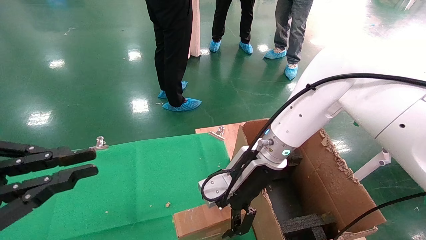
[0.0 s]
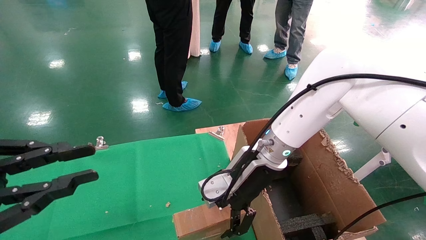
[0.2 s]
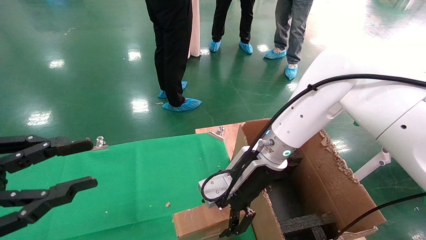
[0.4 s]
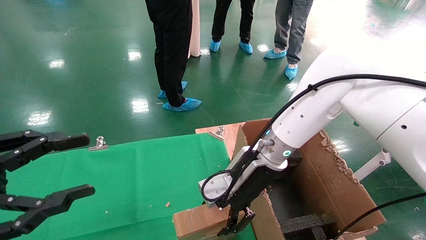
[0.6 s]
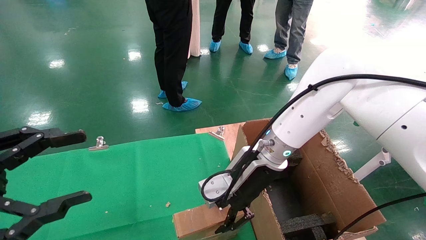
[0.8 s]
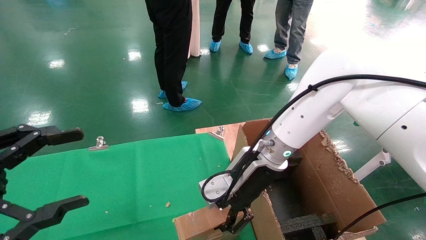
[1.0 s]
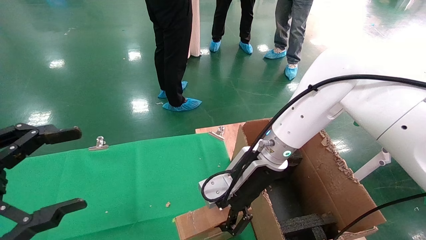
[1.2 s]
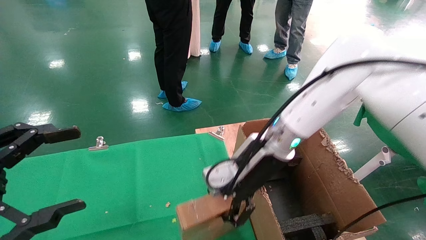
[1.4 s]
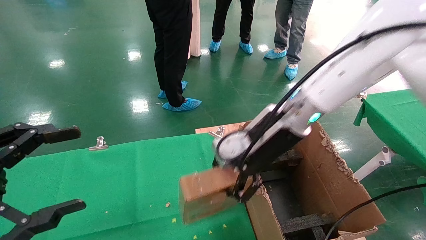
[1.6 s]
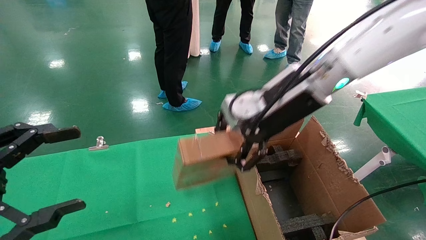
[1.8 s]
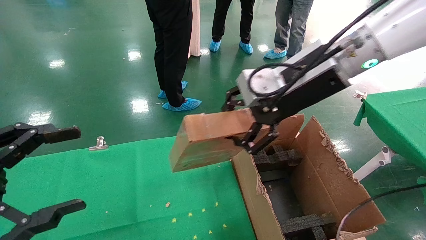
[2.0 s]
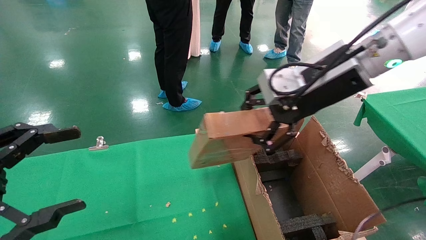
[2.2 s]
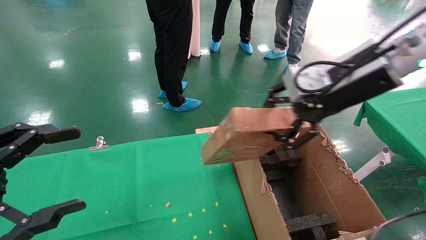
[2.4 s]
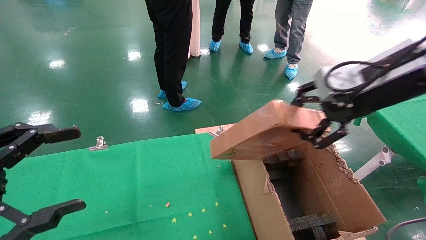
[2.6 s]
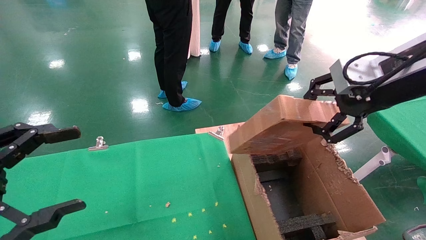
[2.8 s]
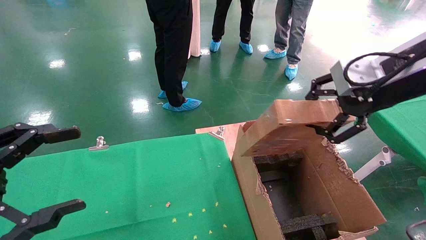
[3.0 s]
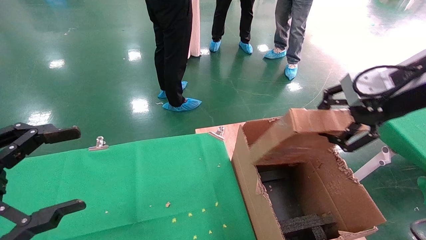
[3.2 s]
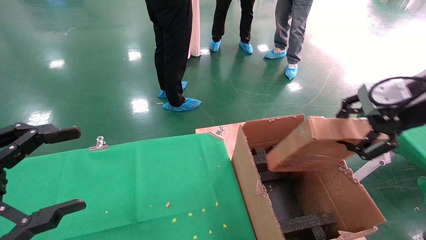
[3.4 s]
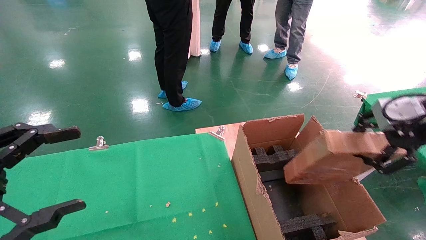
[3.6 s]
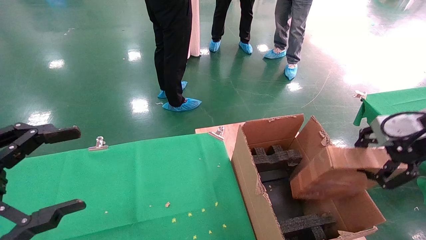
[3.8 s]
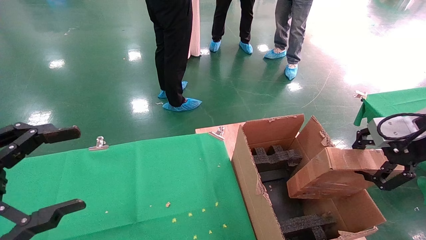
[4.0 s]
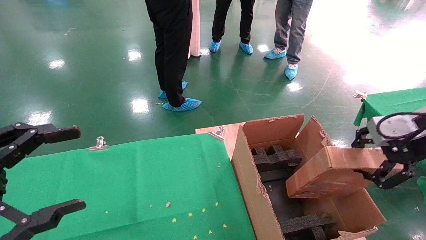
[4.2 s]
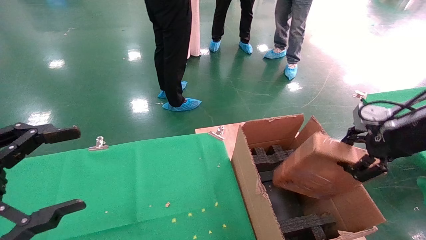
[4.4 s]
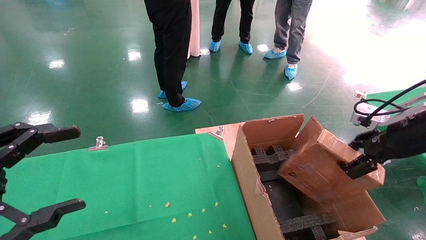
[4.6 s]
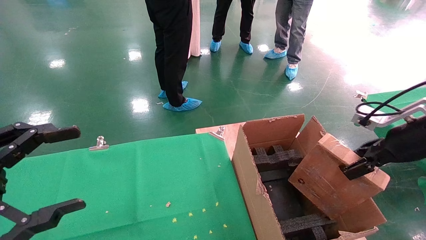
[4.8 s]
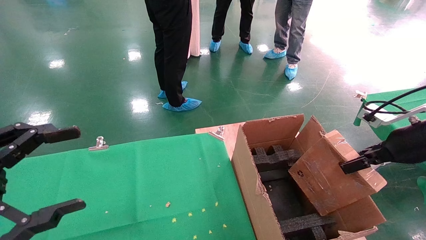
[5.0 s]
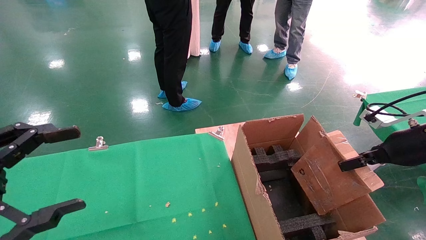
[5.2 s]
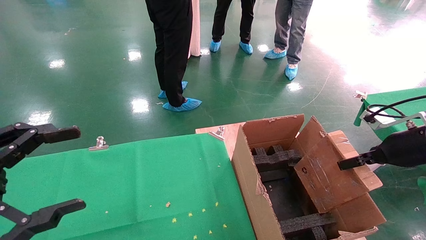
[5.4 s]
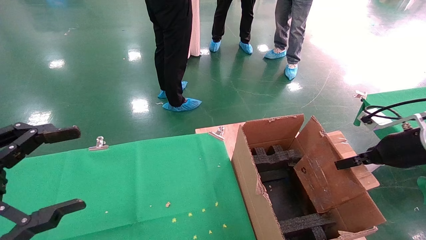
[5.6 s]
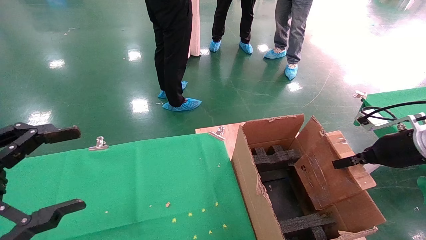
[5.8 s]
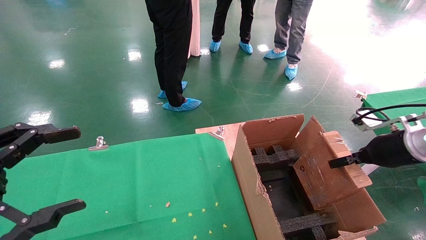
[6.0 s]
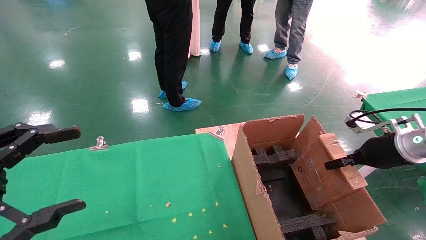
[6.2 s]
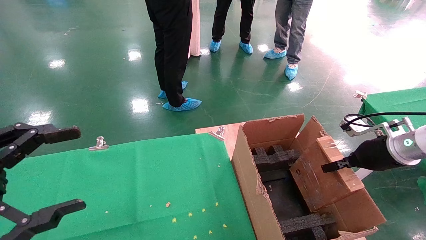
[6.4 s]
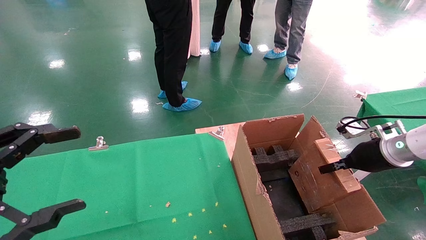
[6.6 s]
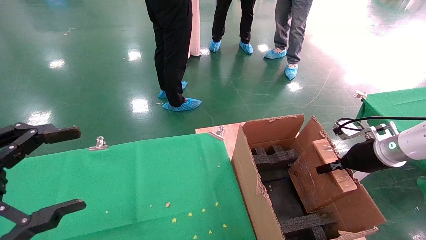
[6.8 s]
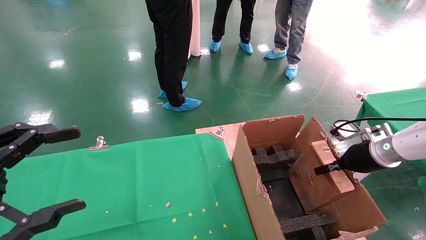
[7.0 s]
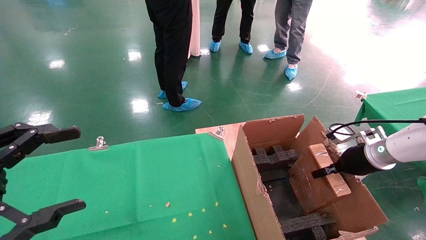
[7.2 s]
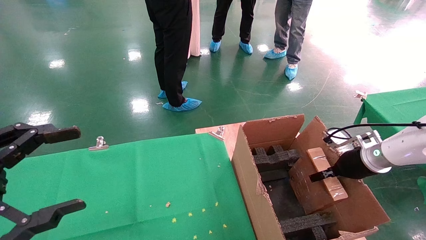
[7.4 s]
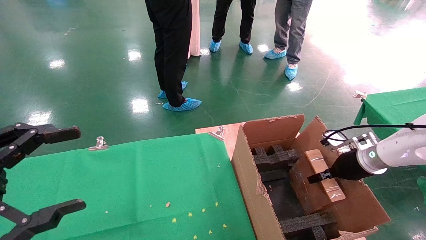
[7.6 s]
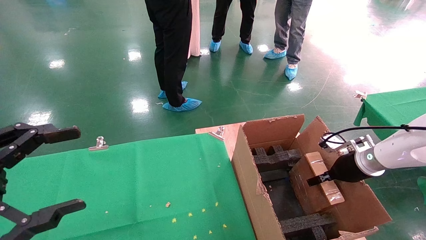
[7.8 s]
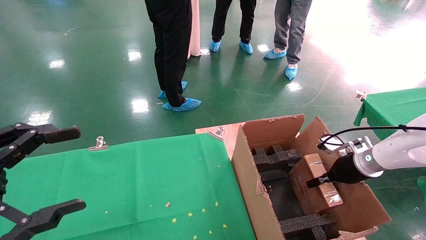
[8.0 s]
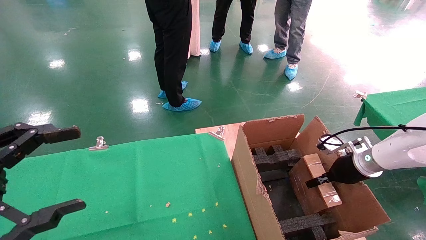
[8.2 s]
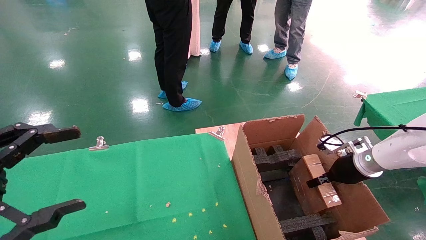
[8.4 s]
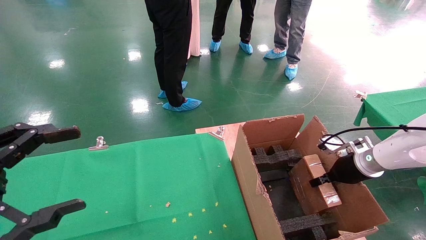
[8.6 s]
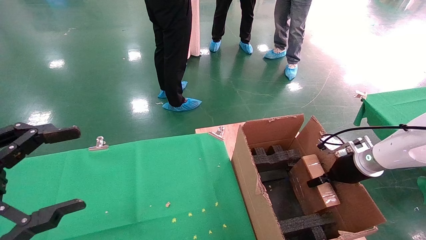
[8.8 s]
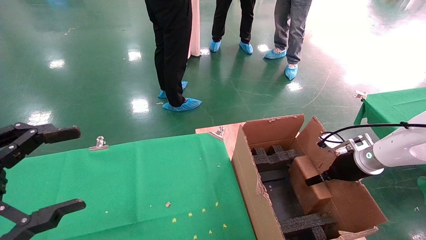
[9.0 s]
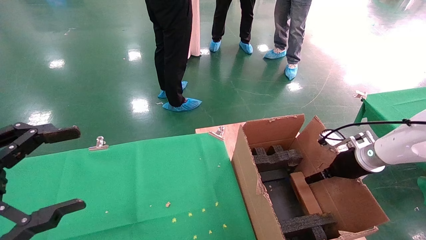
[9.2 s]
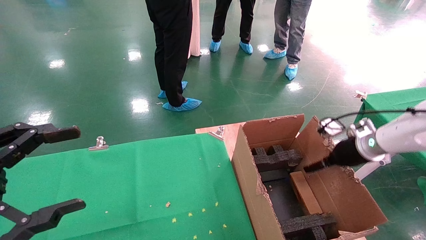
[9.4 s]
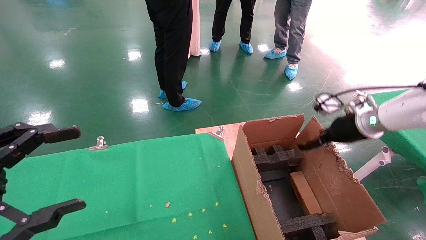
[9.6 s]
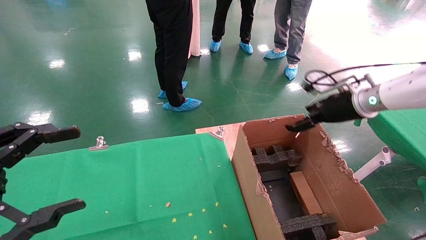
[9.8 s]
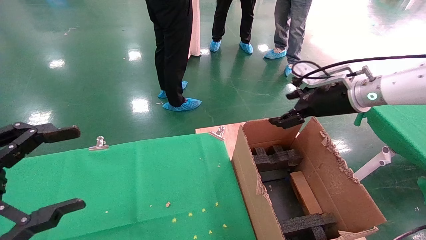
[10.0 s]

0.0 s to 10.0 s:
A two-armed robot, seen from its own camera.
Task of the whole recording: using a robotic arm to pick up a cardboard box and palace it the carton.
Step, 1.4 to 9.6 s: Place the mouse and the power cord paper box into the container.
0.0 to 1.4 s: The left gripper opens up, while the right gripper travels upward by roughly 5 cm, and closes.
1.4 to 2.8 s: The right gripper travels to the right, upward and backward by about 25 cm.
2.8 to 4.2 s: The right gripper is displaced to the right and downward by about 15 cm.
4.2 to 5.8 s: The right gripper is displaced downward and forward by some 10 cm.
5.8 to 7.2 s: The right gripper moves downward and forward, approximately 10 cm.
7.2 to 8.6 s: There are only small adjustments of the grippers.
8.6 to 10.0 s: The right gripper goes roughly 20 cm upward and to the left, and opens.

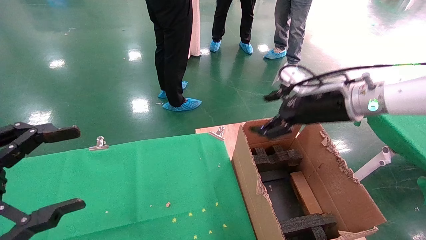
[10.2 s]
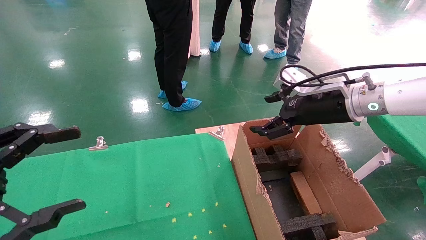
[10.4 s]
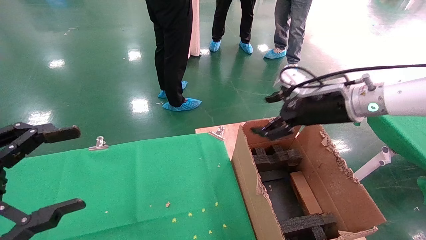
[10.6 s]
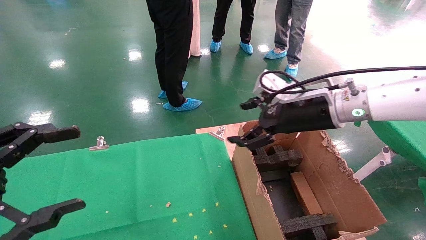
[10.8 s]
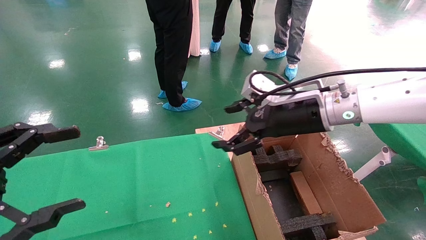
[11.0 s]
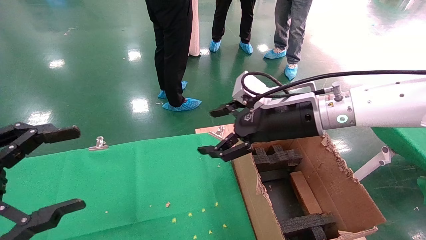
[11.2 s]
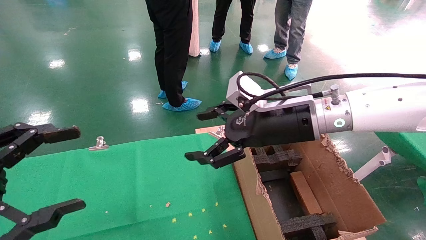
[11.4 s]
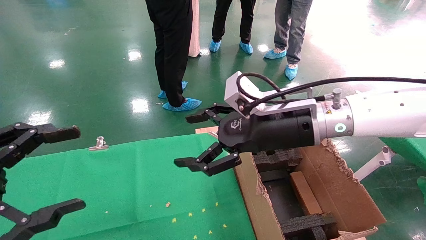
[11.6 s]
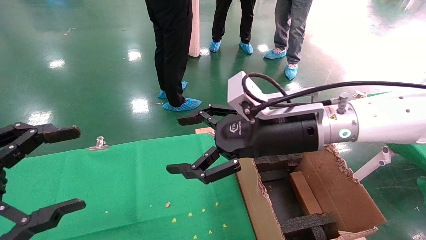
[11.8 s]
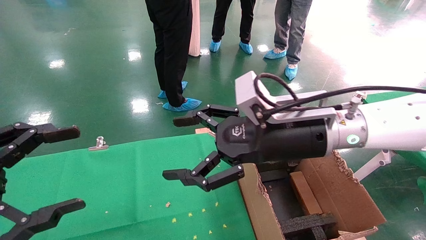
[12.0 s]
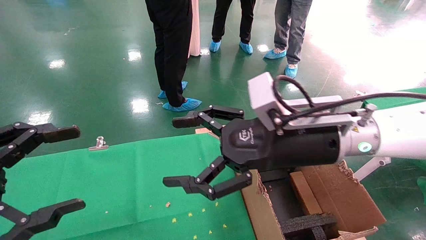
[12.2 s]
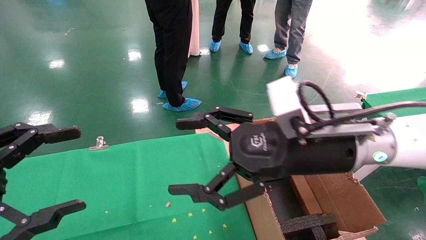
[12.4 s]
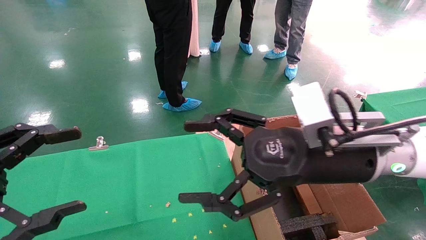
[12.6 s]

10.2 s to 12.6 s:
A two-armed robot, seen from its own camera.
Task of the whole recording: using a robotic arm to pick up a cardboard box and palace it the carton.
10.2 to 11.4 s: The right gripper is displaced to the left by approximately 10 cm.
11.4 to 12.6 s: The right gripper moves backward, some 10 cm.
